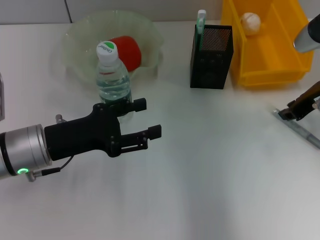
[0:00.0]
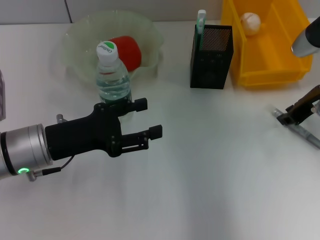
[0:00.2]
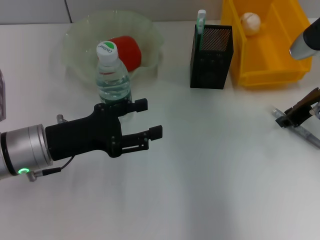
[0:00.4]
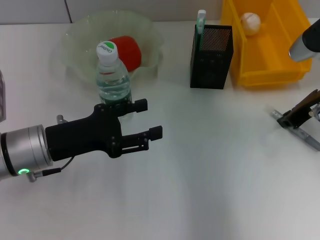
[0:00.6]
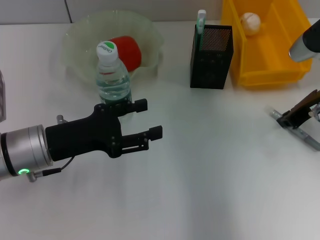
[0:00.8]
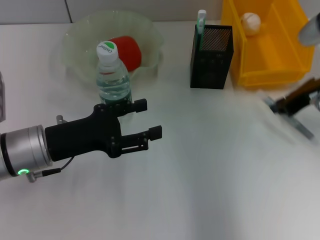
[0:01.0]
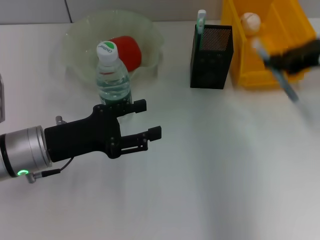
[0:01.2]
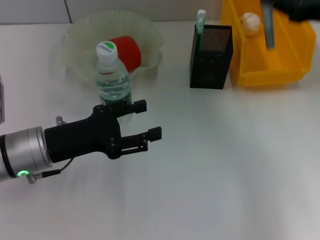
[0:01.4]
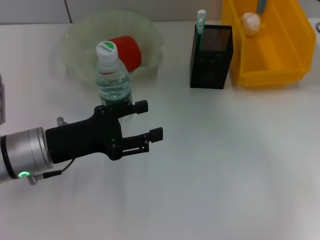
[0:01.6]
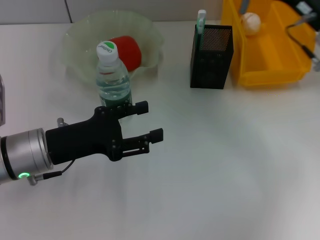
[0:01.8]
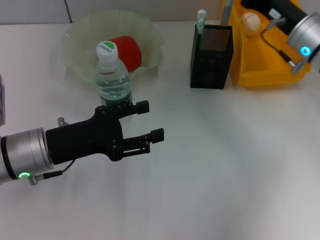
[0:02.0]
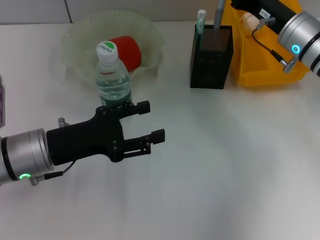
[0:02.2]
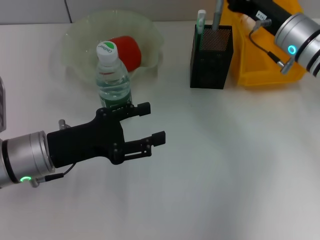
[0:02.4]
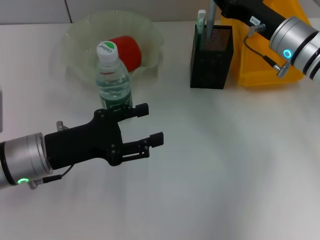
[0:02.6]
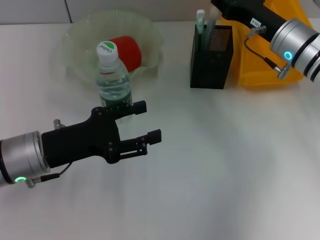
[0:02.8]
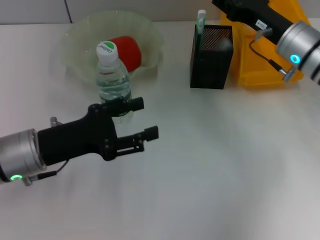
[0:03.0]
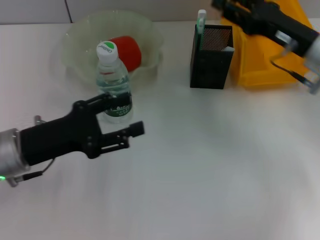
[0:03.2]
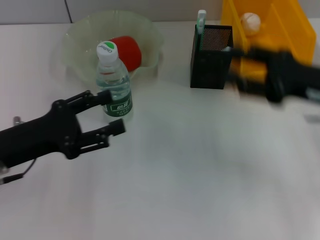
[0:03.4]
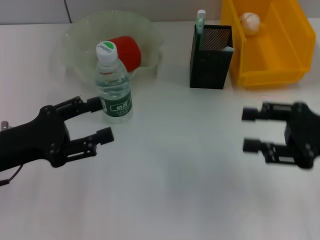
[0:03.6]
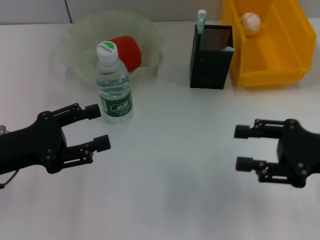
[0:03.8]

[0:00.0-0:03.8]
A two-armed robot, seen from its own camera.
Step, 0:00.8 to 0:02.8: Place the gray glue into the pen holder with the right hand.
0:00.0 to 0:01.2: The right gripper goes some 5 cm upward.
0:01.2 to 0:02.6: The right gripper shifts about 10 cm downward and to the left.
0:02.6 to 0:03.8: The right gripper moves backward and to the right, some 20 cm, and opens its fingers, while the left gripper goes some 5 cm to the left.

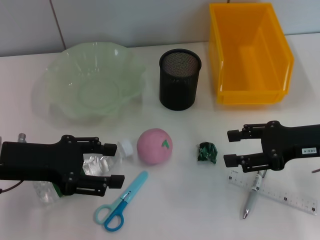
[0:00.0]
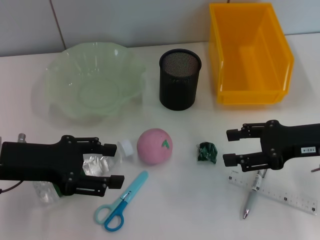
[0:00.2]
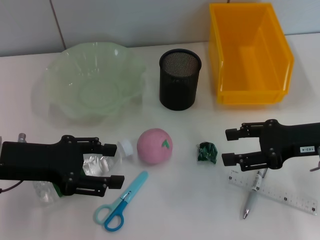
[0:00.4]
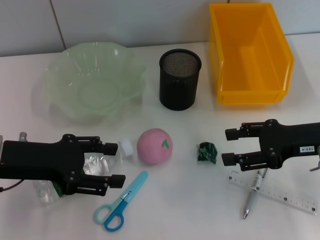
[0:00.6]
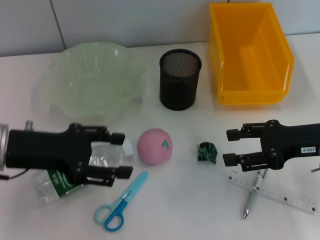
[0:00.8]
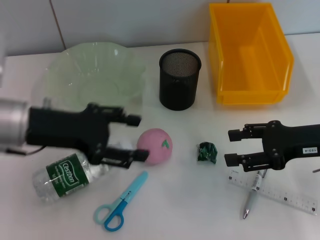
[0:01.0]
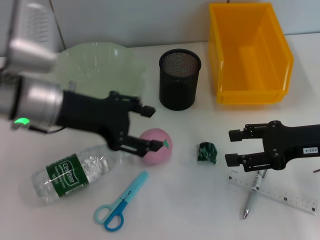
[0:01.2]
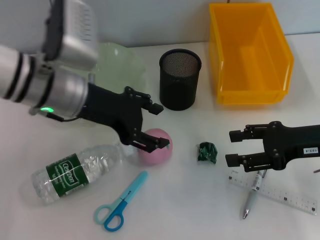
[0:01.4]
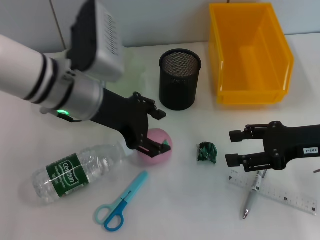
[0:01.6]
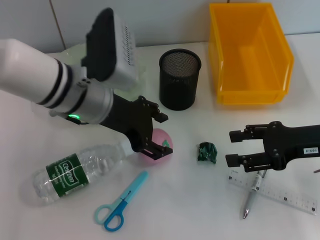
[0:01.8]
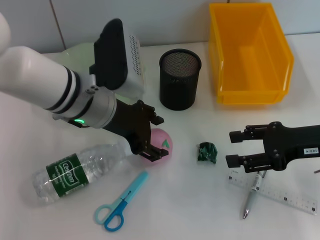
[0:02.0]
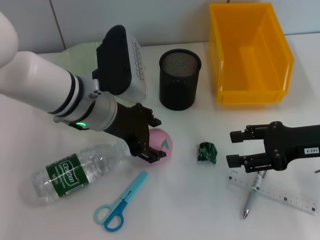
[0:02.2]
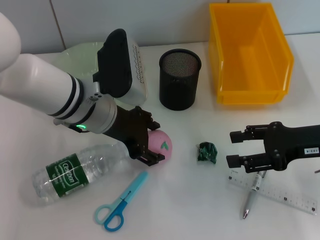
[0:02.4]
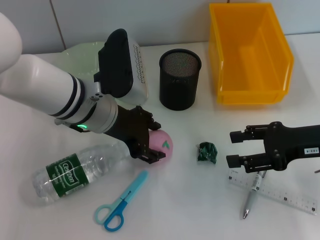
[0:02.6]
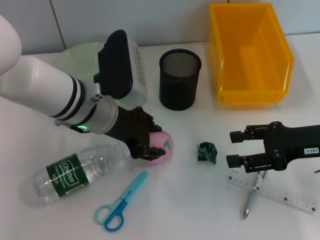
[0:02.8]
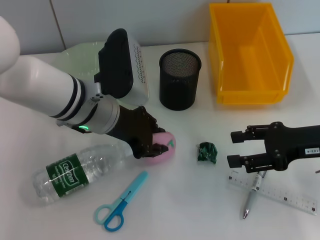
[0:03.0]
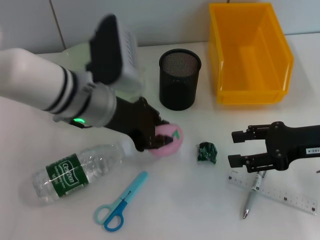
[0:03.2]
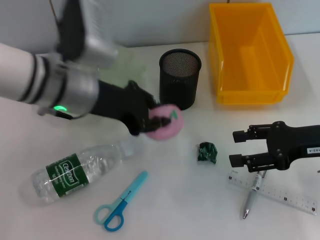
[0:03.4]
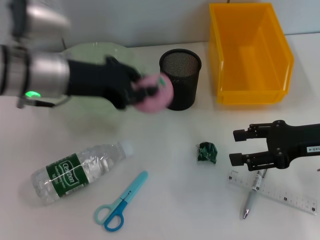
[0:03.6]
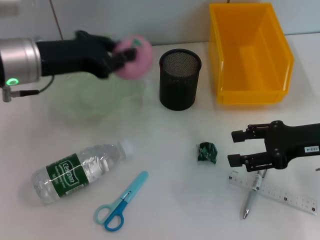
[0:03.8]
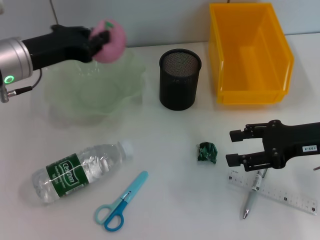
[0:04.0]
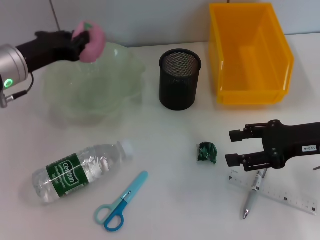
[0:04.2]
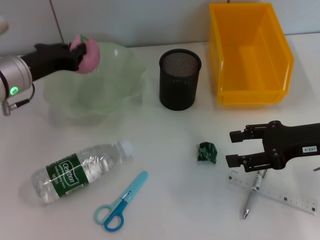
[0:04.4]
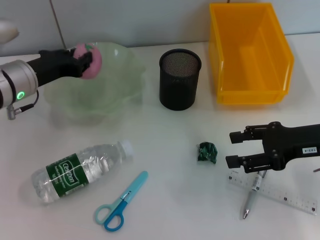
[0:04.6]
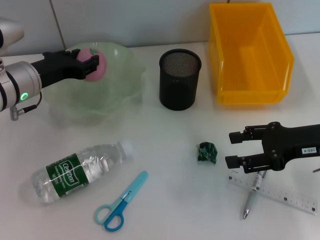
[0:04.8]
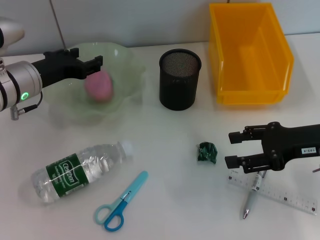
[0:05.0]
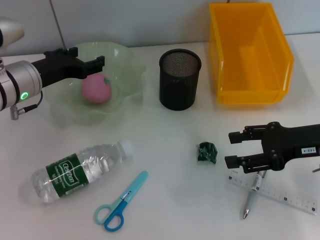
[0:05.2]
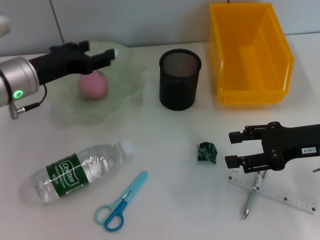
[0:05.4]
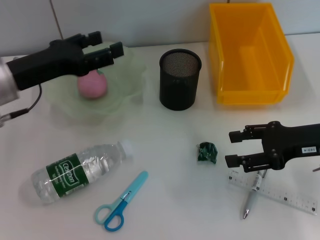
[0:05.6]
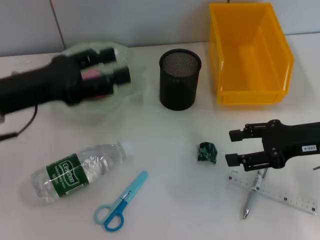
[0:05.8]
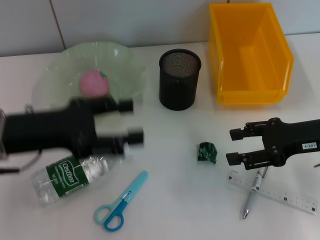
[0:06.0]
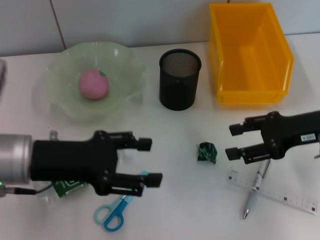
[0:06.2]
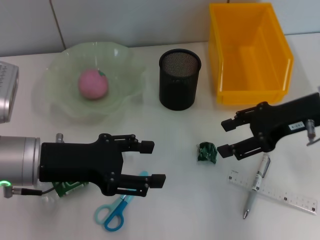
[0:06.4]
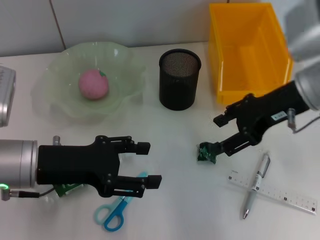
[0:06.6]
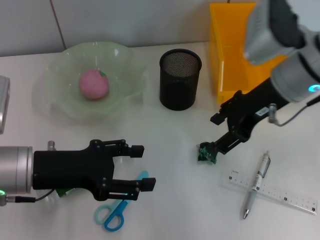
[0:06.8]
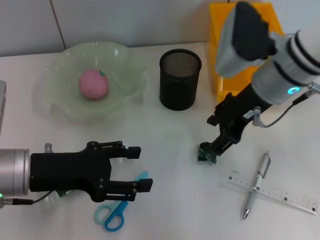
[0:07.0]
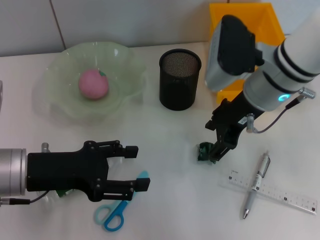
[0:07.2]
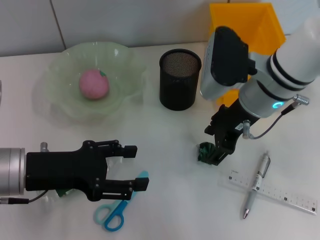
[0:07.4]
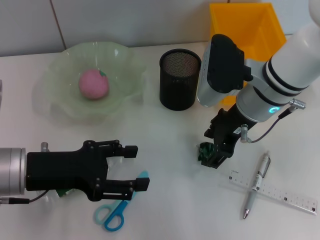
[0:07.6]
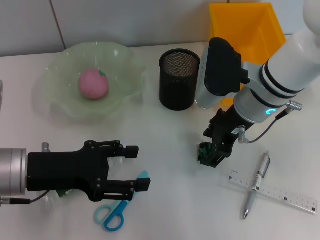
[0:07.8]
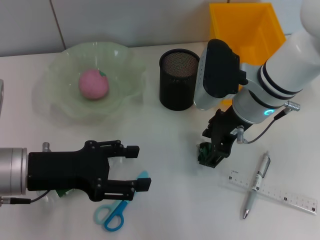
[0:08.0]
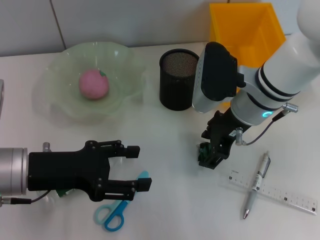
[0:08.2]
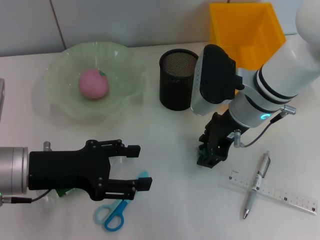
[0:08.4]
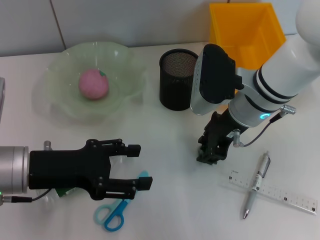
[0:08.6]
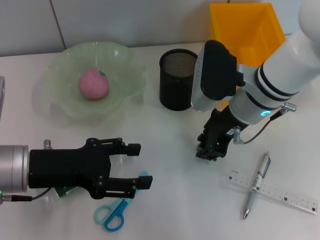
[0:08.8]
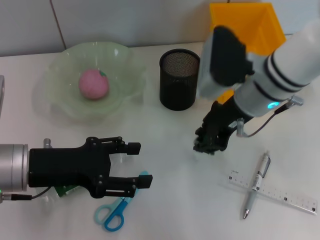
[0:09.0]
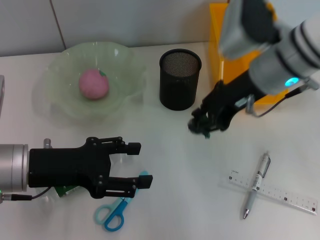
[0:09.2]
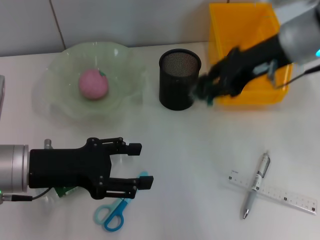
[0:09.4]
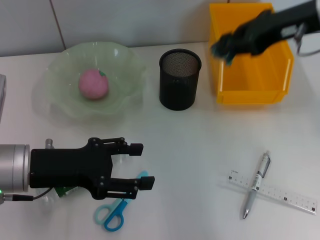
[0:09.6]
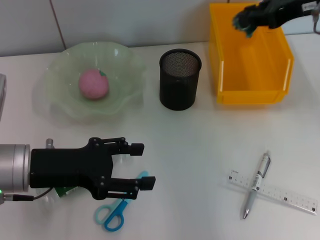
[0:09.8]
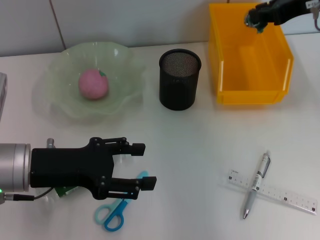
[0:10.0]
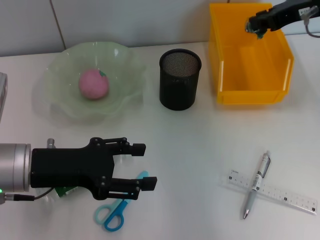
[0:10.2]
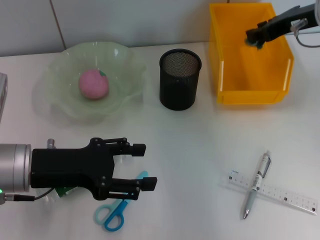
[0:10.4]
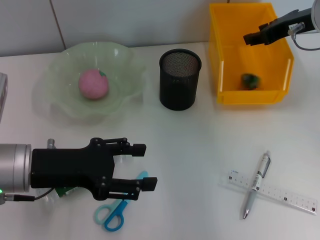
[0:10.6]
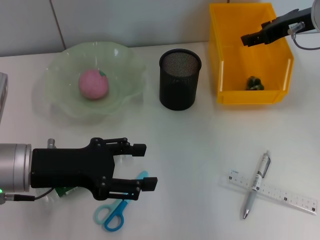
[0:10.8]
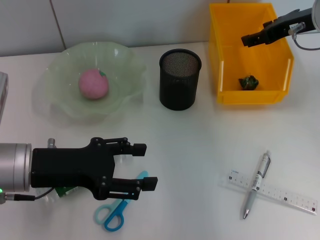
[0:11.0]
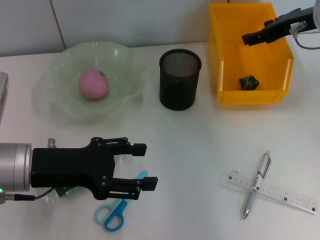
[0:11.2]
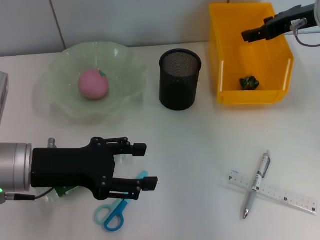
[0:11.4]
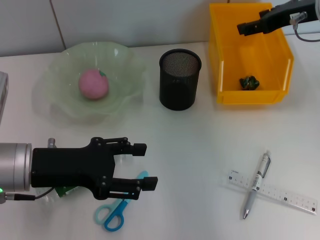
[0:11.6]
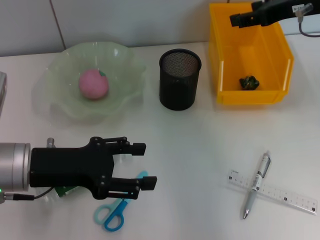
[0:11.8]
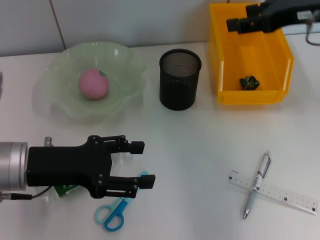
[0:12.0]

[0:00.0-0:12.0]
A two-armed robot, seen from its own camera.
Step, 0:00.0 to 0:02.8: Grab the peach with the left hand.
Step, 0:03.2 to 0:05.2: Place the peach into the fruit bowl with the left hand.
Step, 0:05.4 to 0:08.6: Grab the plastic with the right hand.
Step, 0:08.8 to 0:11.6: Place the plastic into the trash can with the right hand.
0:00.0 to 0:01.6: The left gripper shifts about 15 cm to the right and forward.
0:01.6 to 0:03.0: The grippers move only a little.
0:03.0 to 0:04.4: The left gripper heads to the left, covering approximately 10 cm, and closes.
0:04.4 to 0:06.0: The left gripper shifts some 10 cm backward, and opens up.
0:06.0 to 0:07.6: The right gripper shifts approximately 15 cm to the left and forward, while the left gripper shifts by approximately 5 cm.
0:07.6 to 0:09.0: The right gripper closes.
0:09.0 to 0:10.4: The right gripper moves to the right and forward, some 15 cm.
0:10.4 to 0:12.0: The right gripper heads backward, covering approximately 5 cm, and opens.

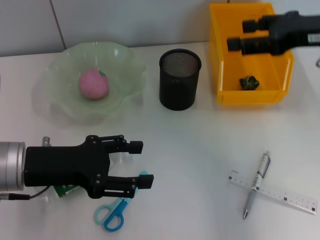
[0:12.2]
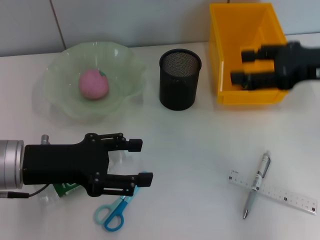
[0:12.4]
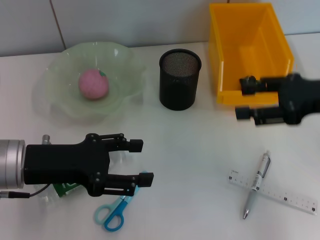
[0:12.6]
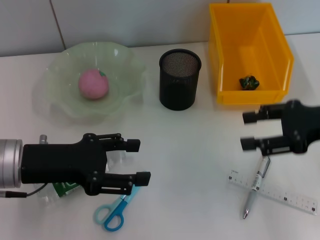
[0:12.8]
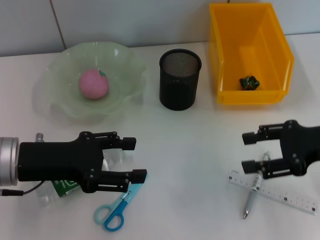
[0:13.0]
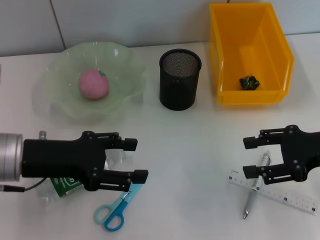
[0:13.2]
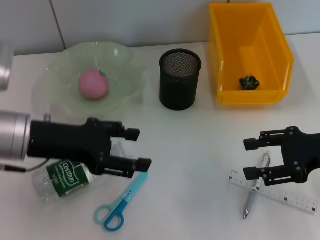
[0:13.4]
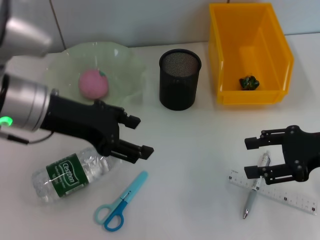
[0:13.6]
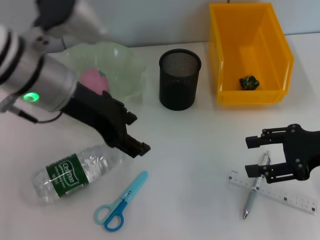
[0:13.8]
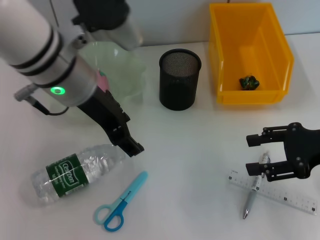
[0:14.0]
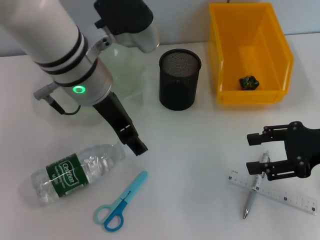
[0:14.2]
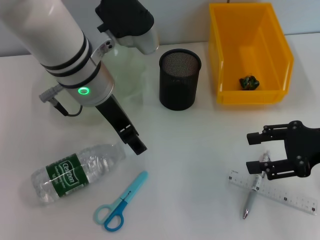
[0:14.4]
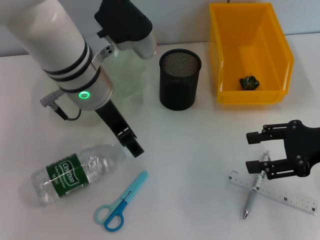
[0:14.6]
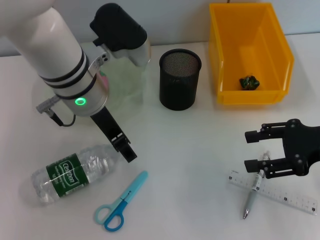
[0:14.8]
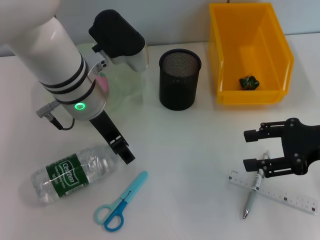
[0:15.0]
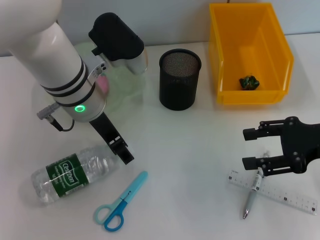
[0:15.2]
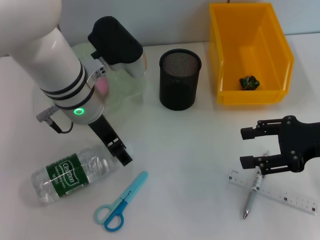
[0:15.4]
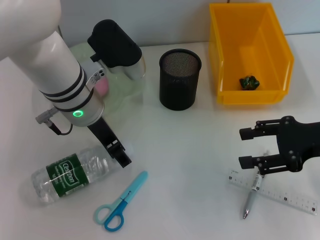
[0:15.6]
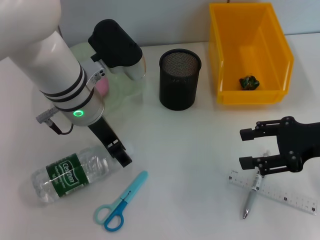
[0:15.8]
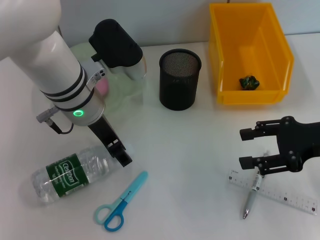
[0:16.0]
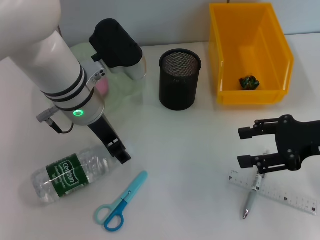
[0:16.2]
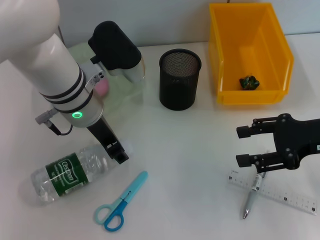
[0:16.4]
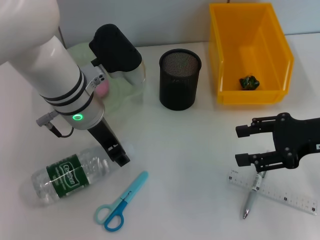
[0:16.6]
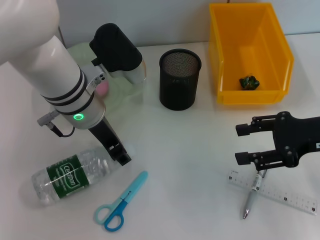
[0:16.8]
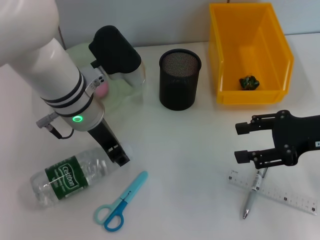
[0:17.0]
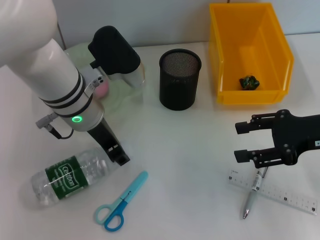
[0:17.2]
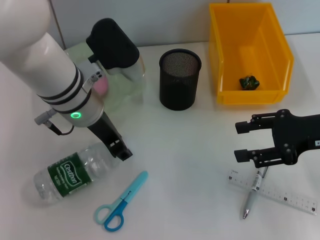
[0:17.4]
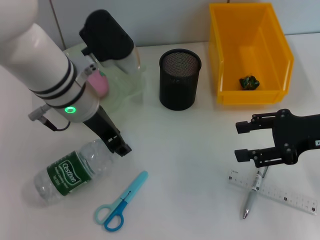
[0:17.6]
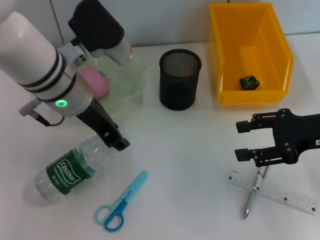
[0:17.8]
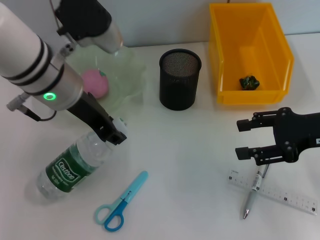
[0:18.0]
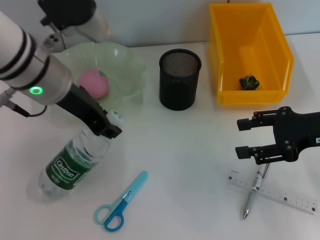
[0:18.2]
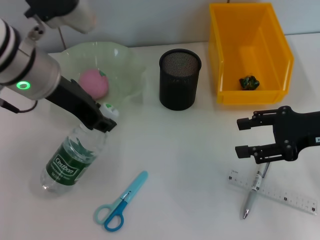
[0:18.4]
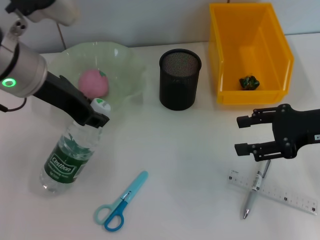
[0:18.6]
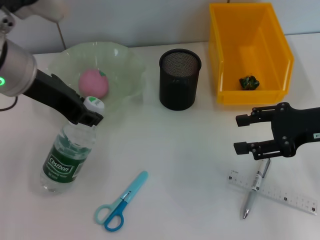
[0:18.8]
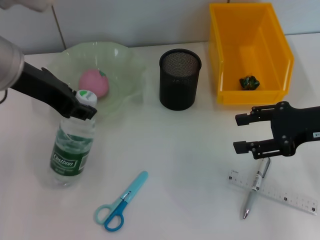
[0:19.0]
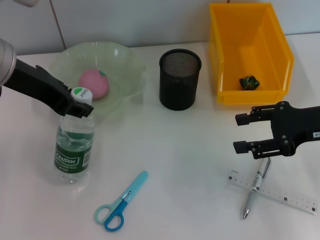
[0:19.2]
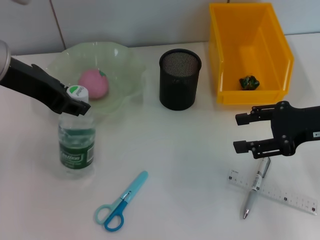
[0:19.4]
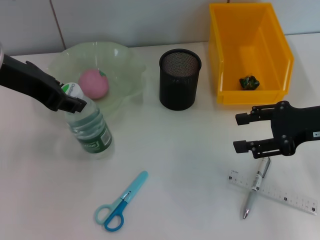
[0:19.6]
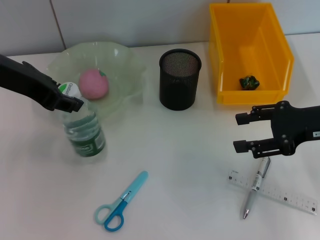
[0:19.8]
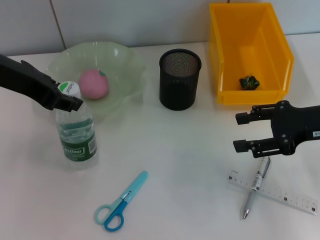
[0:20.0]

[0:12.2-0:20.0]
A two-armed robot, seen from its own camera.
Step, 0:12.2 to 0:16.2: Grab the water bottle with the left hand.
0:12.2 to 0:13.8: The right gripper heads downward and backward, covering roughly 10 cm. Meanwhile the left gripper moves upward, to the right and forward, some 15 cm.
0:13.8 to 0:15.4: The left gripper goes approximately 5 cm downward.
0:15.4 to 0:16.8: Neither gripper changes place.
0:16.8 to 0:18.4: The left gripper travels upward by roughly 5 cm.
0:18.4 to 0:20.0: The left gripper goes some 5 cm to the left.
